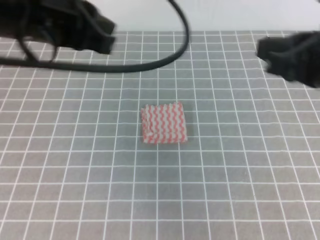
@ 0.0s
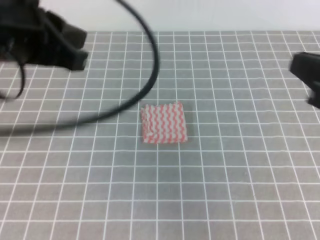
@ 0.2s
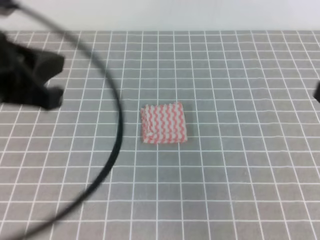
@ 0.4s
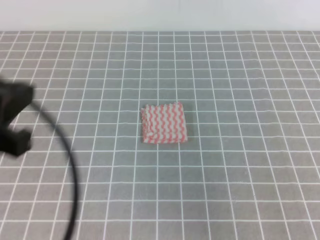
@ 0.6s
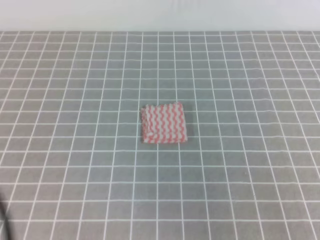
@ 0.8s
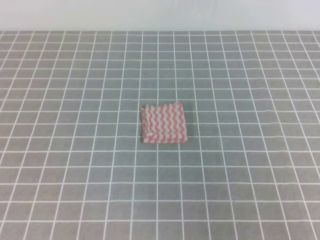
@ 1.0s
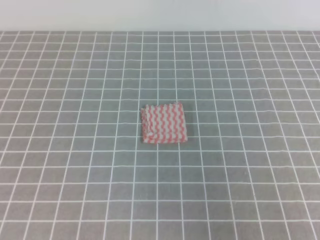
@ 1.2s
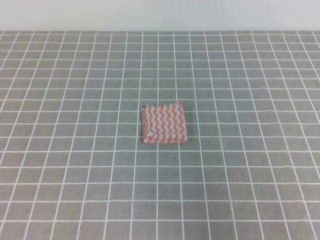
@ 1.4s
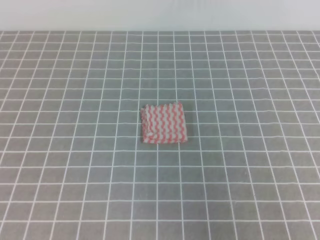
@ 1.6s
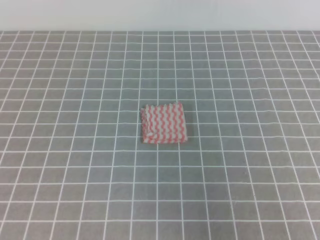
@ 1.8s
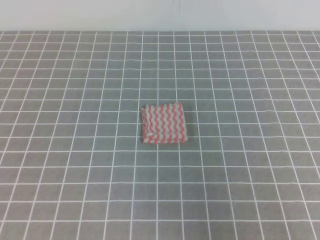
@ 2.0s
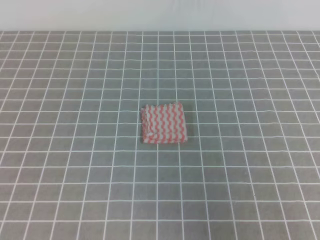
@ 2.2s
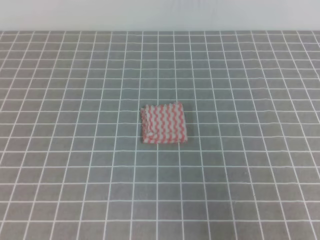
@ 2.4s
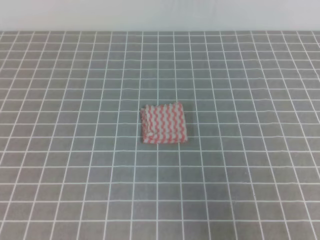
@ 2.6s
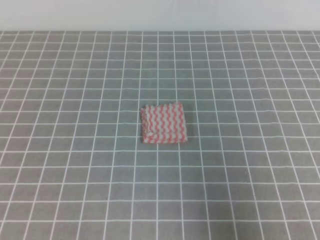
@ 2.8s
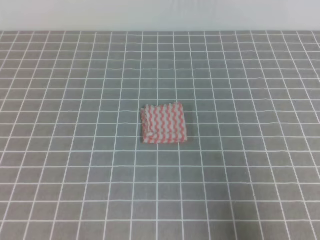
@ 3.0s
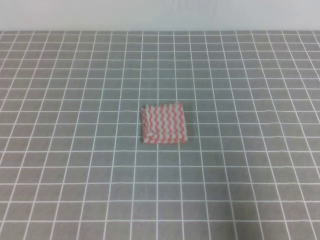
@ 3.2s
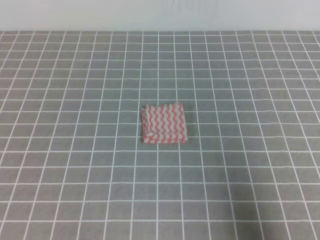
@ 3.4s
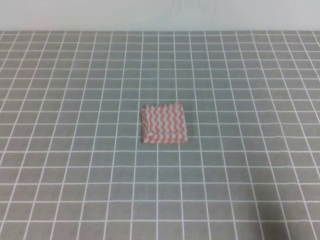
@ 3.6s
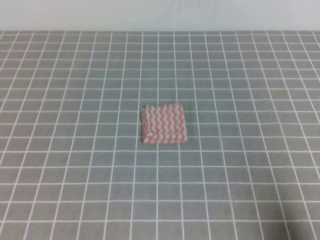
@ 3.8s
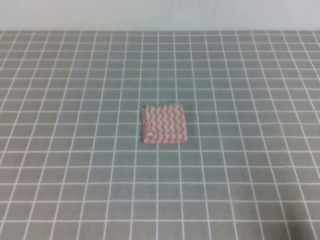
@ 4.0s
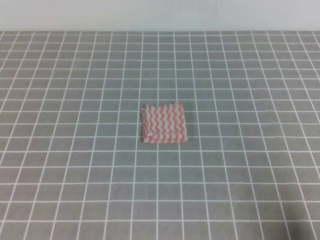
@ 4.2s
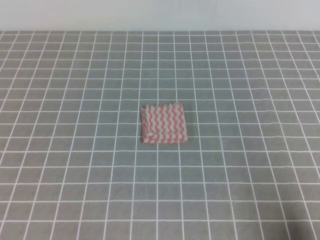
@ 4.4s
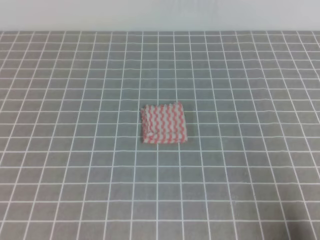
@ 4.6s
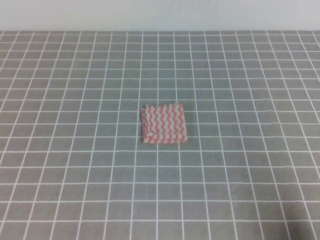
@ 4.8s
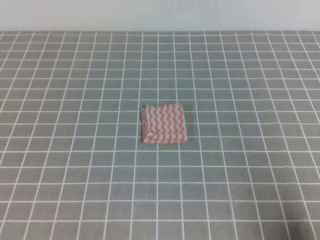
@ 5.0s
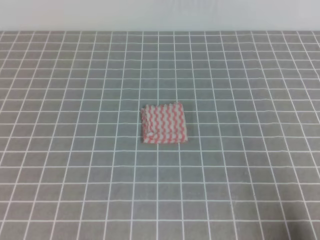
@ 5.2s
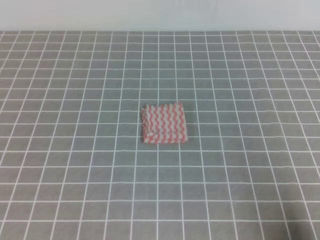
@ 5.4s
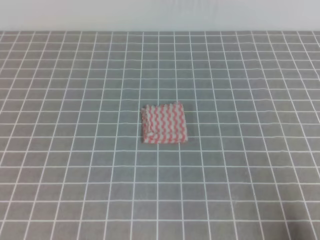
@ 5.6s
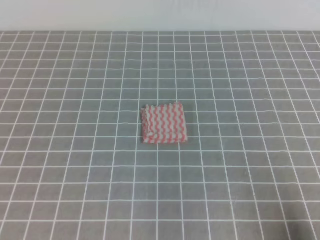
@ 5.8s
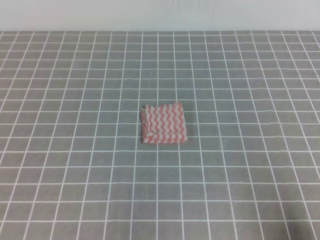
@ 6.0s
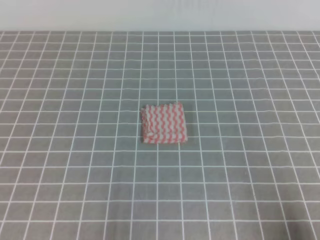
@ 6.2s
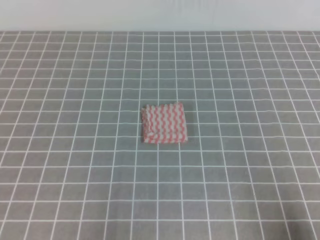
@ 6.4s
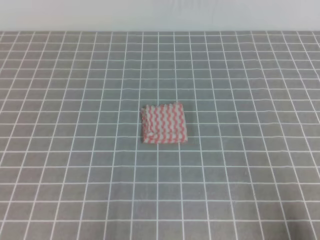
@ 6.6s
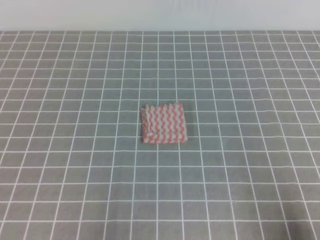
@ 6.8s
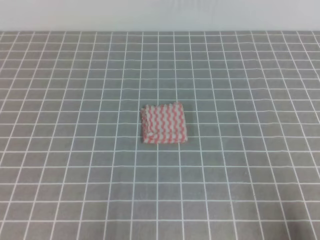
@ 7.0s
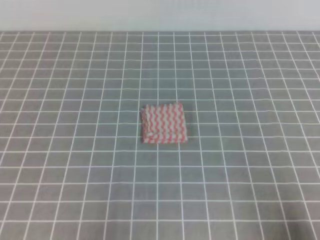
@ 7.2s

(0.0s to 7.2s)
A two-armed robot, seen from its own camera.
Step, 0.0s - 7.2s: Fold the towel.
0.0s - 1.4s: The right gripper heads backward and to the right, covering roughly 15 cm. Meanwhile the left gripper shifts approximately 25 cm backward and to the left.
2.8s - 4.4s: The right gripper goes roughly 15 cm downward.
